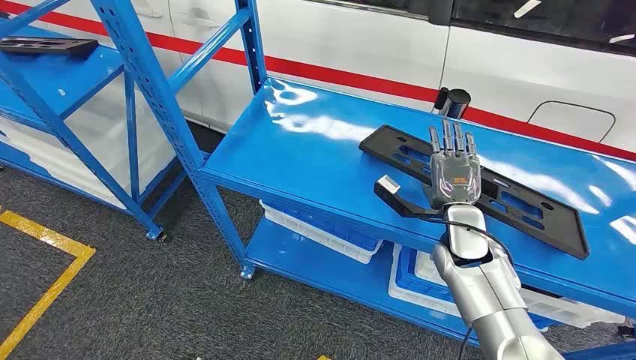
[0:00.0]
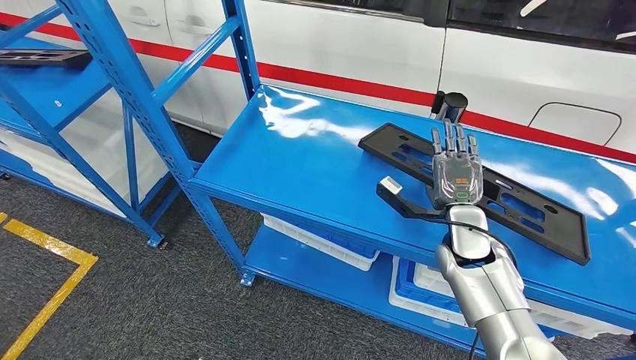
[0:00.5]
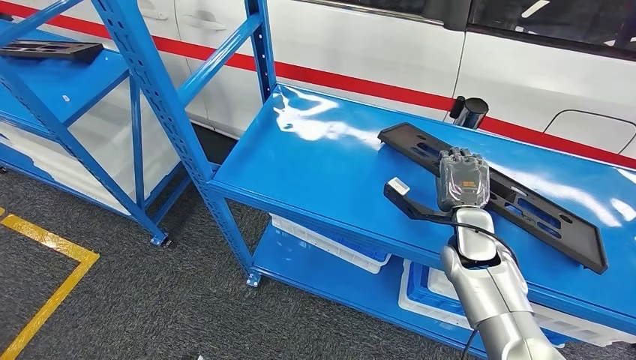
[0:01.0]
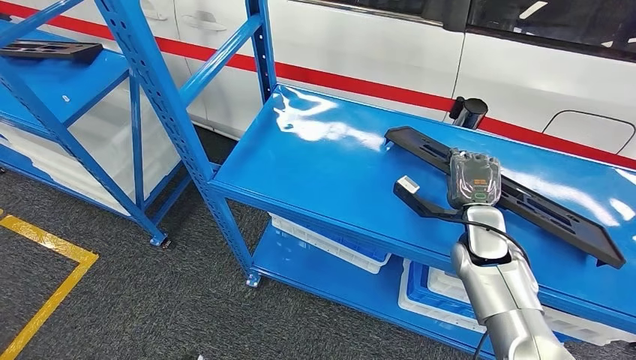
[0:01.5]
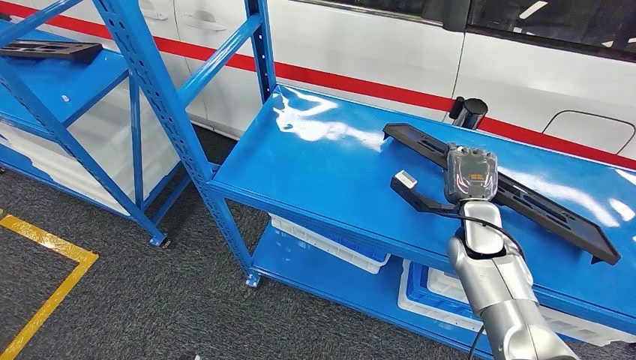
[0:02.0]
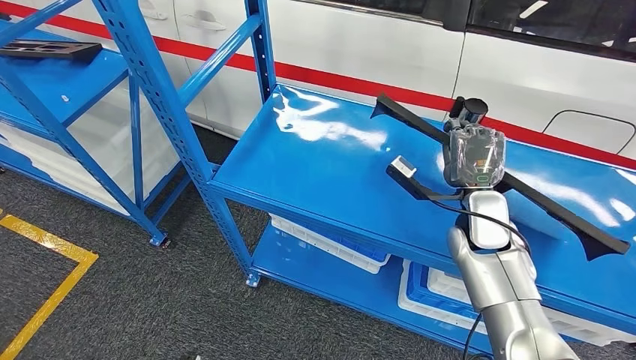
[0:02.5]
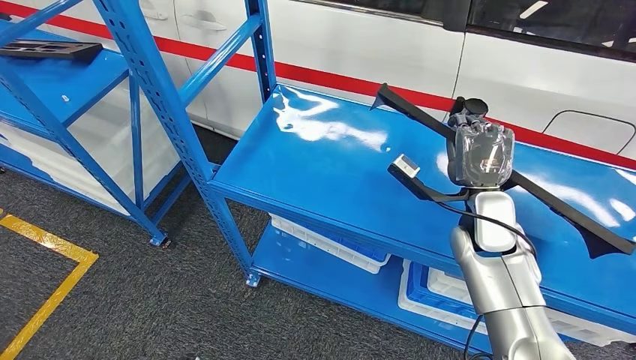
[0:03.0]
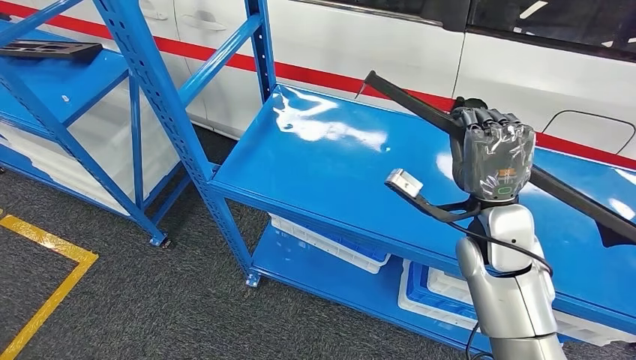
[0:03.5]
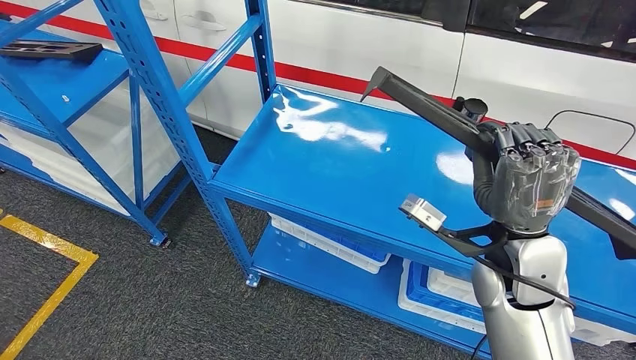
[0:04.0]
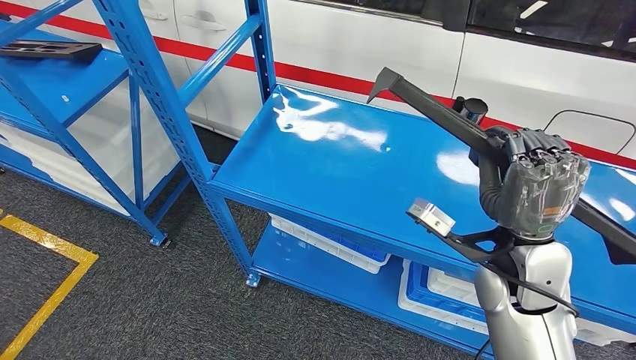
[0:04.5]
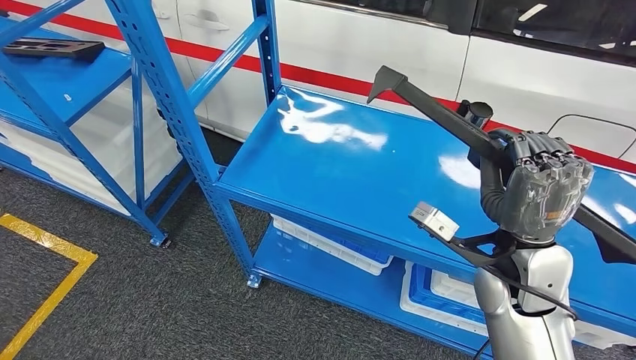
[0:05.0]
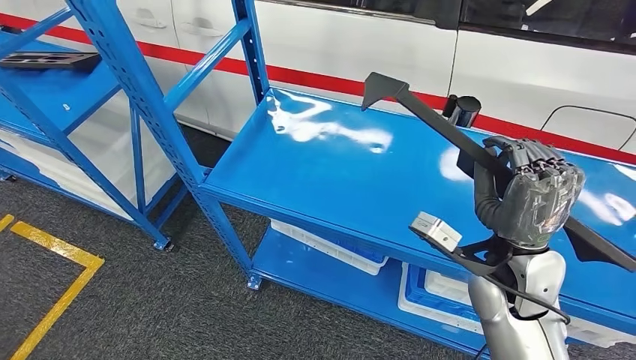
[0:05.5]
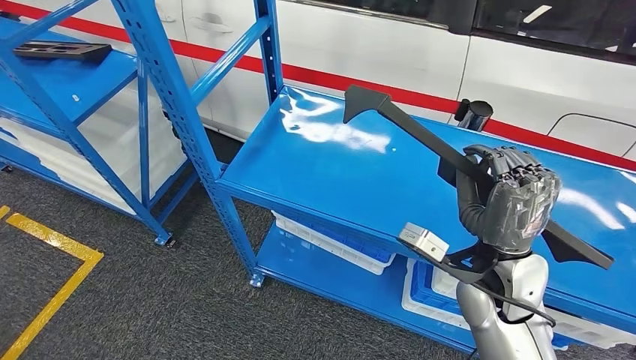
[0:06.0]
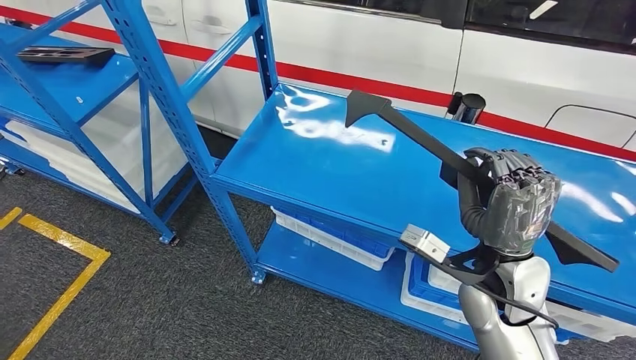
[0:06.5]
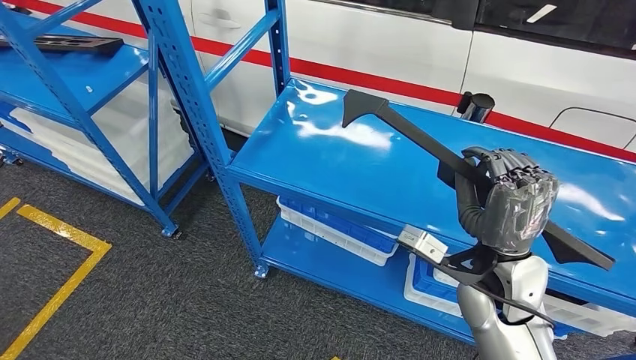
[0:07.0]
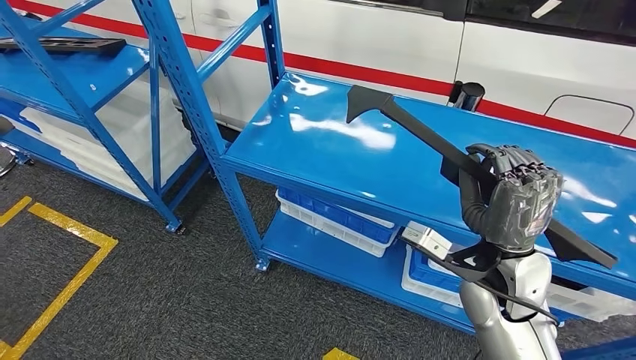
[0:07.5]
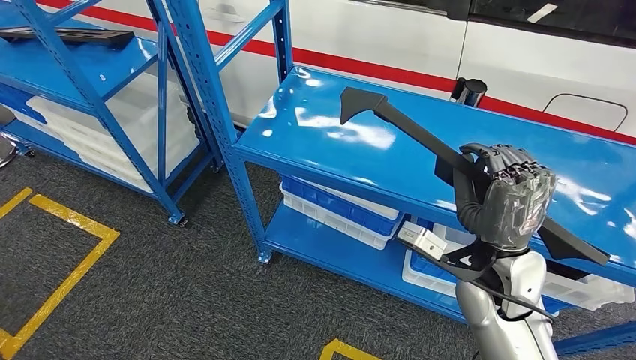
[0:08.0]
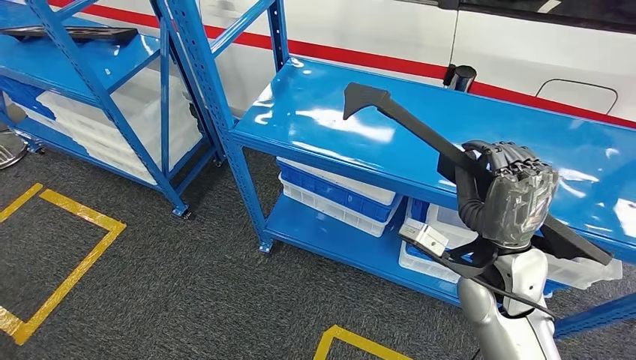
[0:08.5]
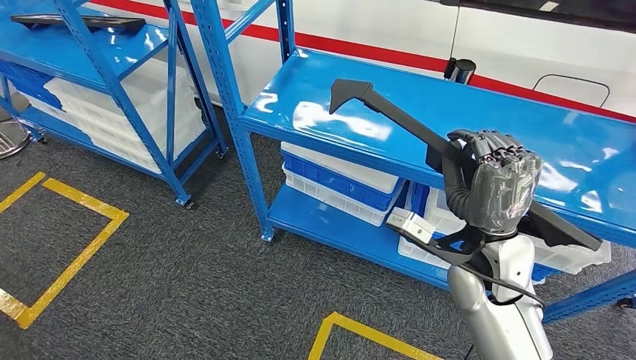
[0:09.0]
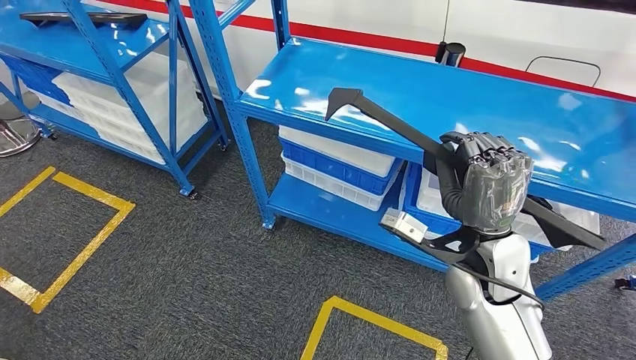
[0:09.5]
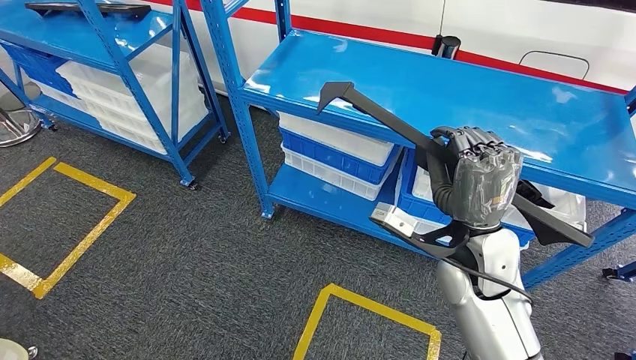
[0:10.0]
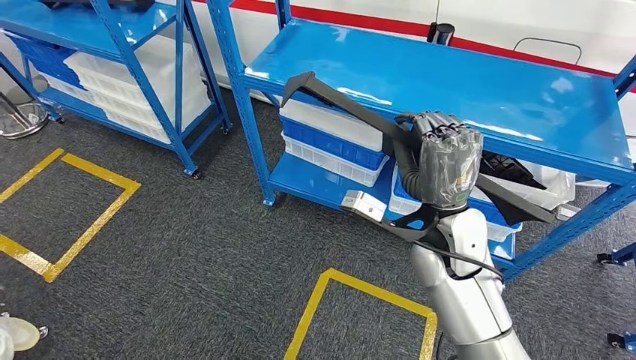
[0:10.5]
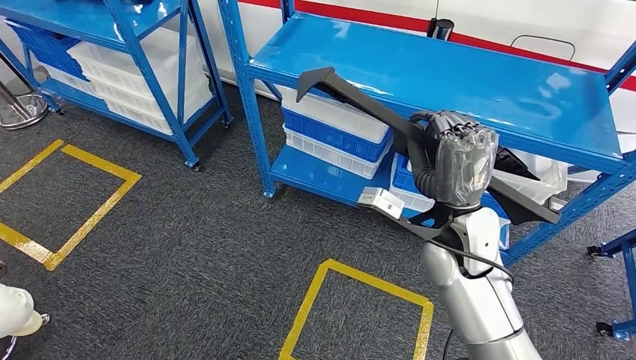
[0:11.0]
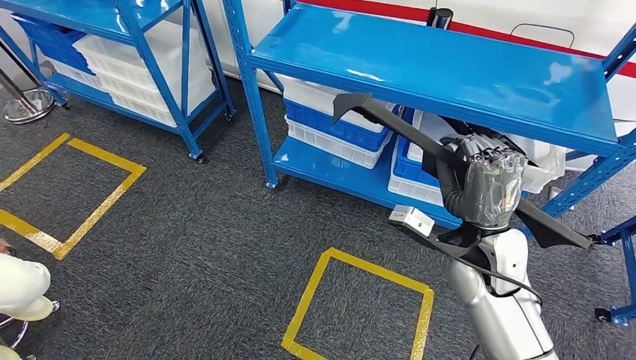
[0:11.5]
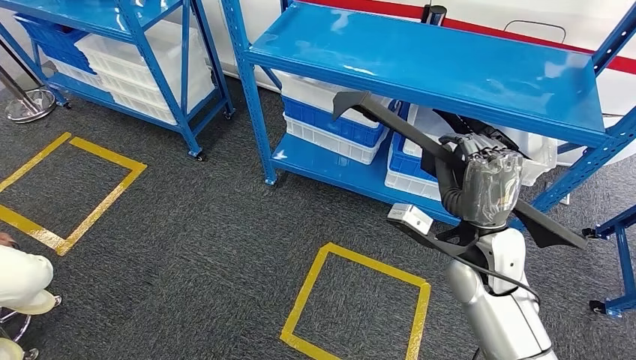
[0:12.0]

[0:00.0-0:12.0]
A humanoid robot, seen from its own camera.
Step, 0:00.0 to 0:03.5: Pick up the large material from the shelf.
0:02.0 to 0:04.0: The right hand travels upward and backward by approximately 15 cm.

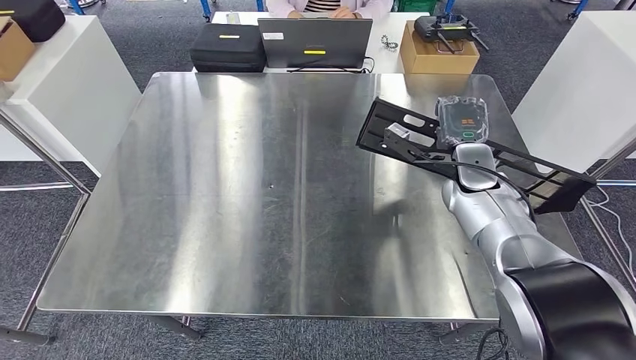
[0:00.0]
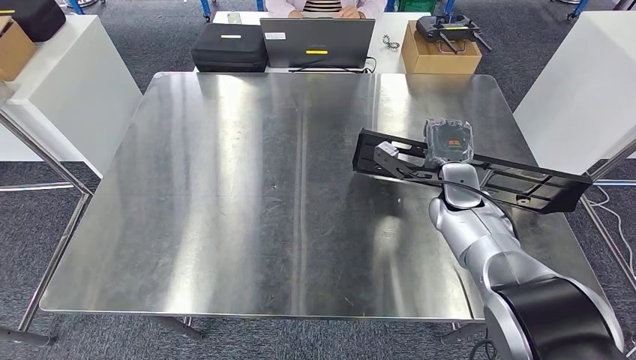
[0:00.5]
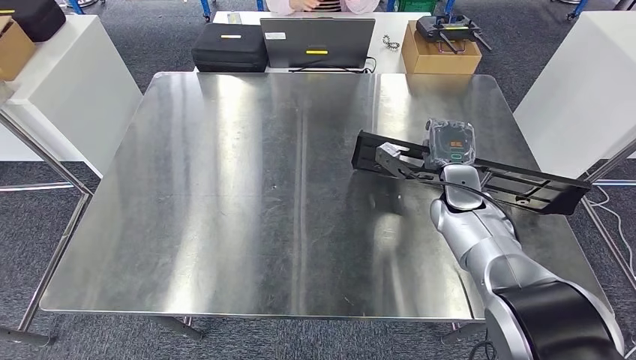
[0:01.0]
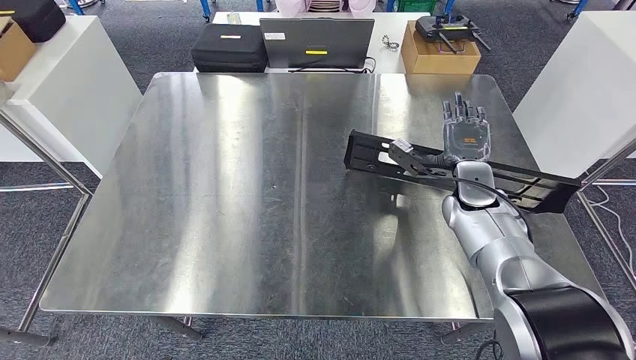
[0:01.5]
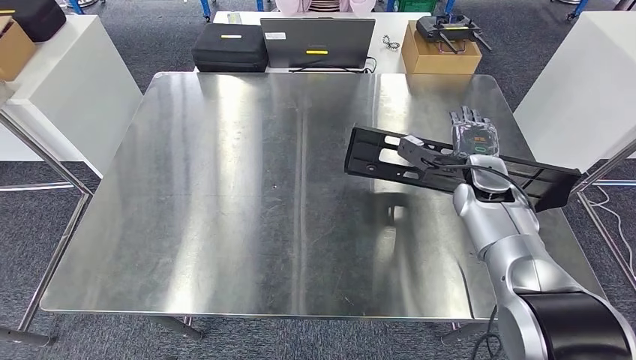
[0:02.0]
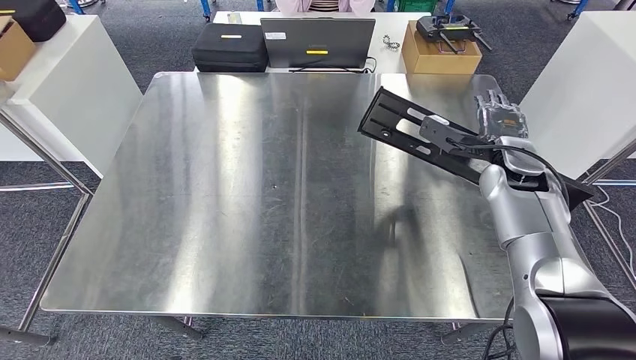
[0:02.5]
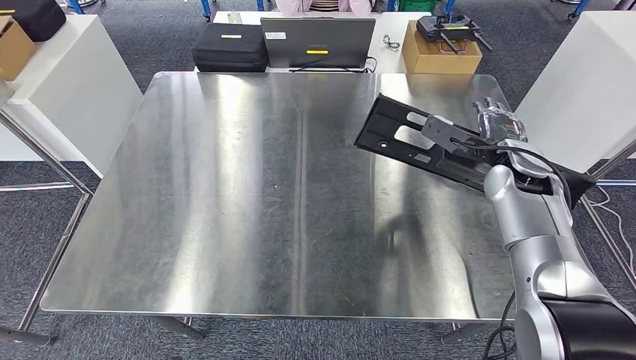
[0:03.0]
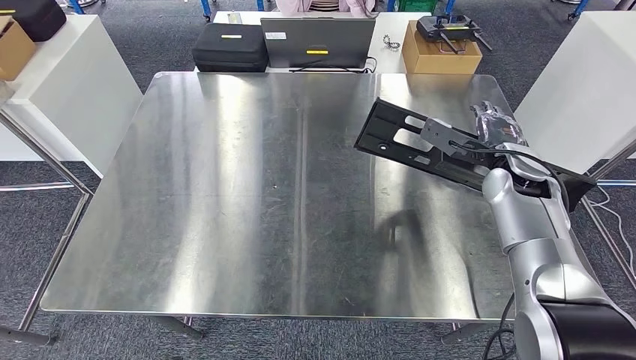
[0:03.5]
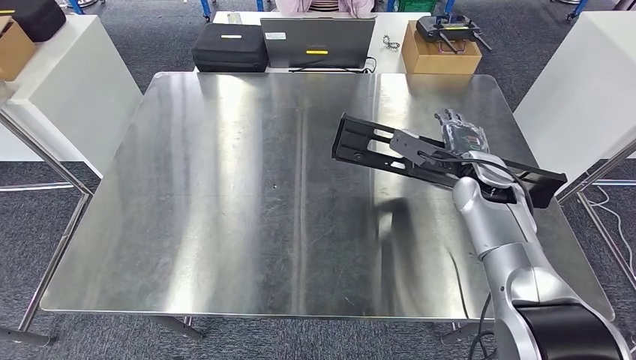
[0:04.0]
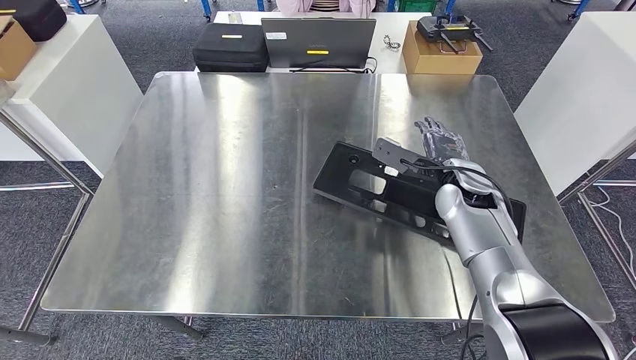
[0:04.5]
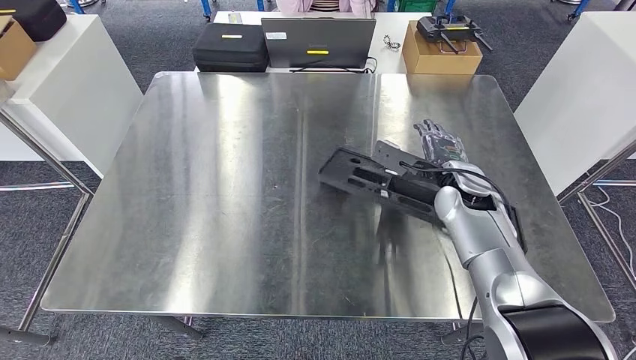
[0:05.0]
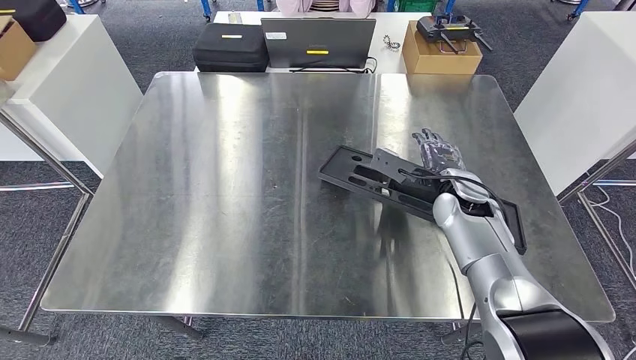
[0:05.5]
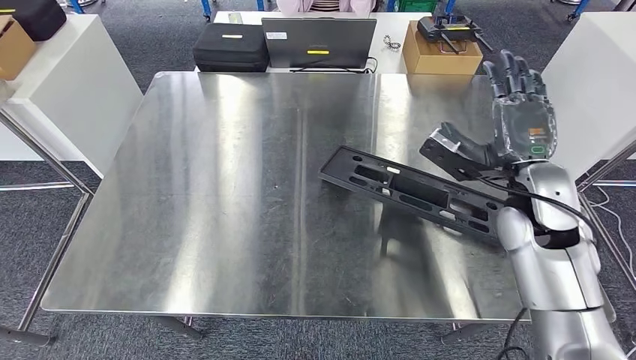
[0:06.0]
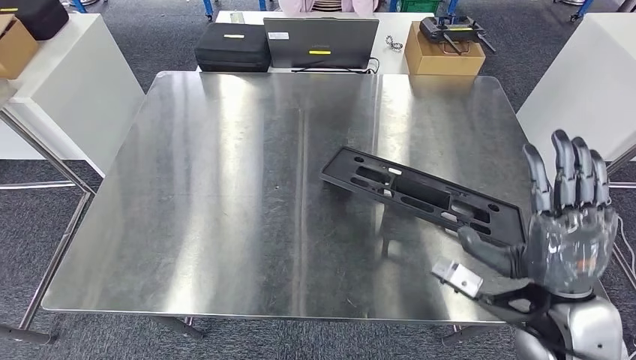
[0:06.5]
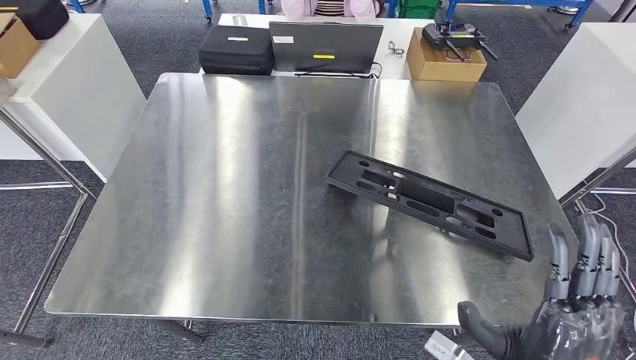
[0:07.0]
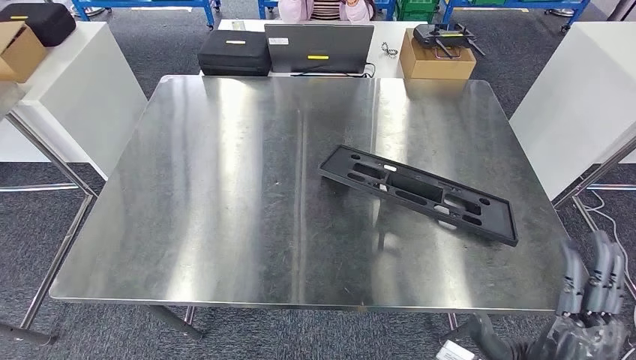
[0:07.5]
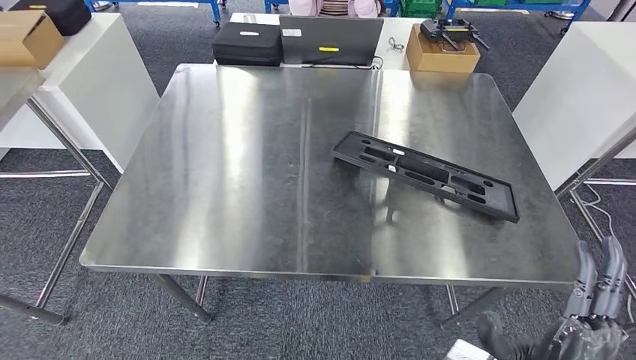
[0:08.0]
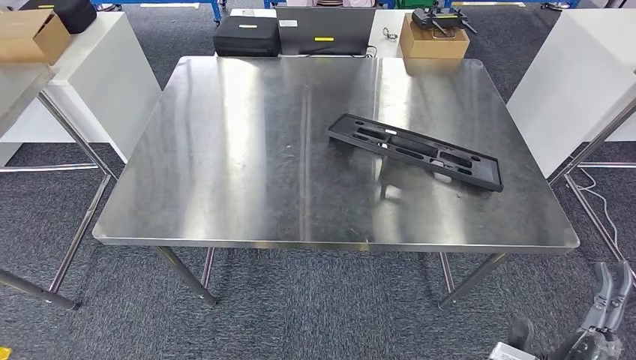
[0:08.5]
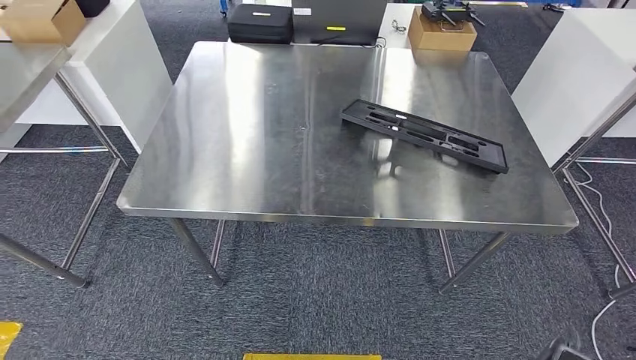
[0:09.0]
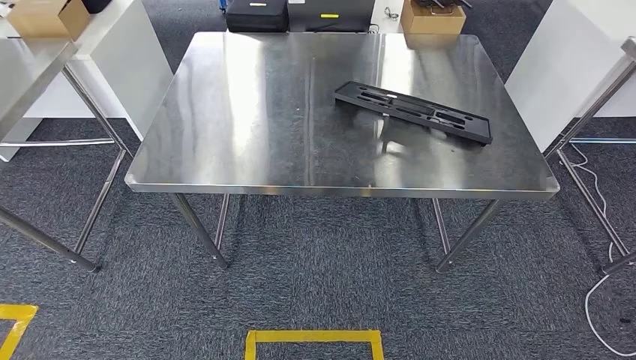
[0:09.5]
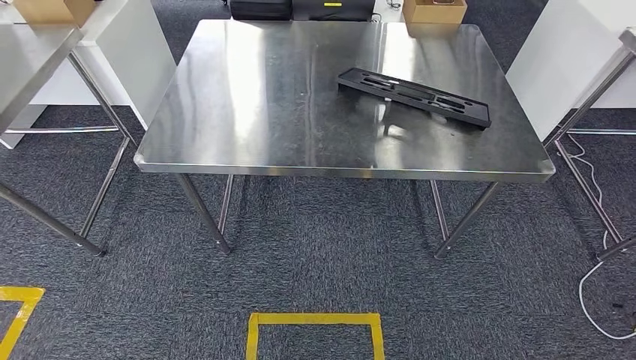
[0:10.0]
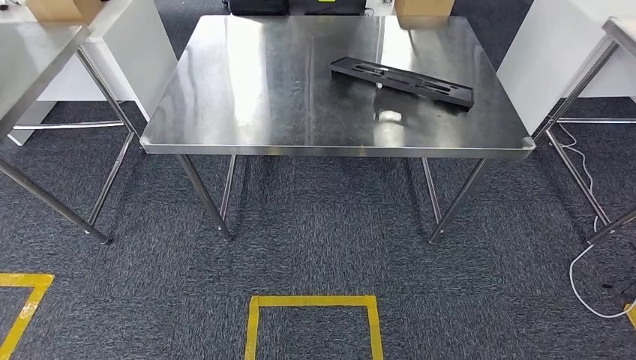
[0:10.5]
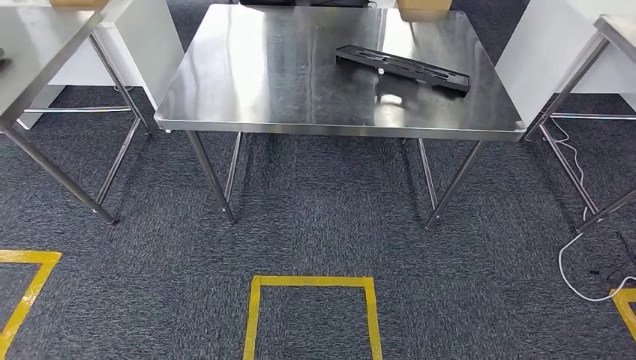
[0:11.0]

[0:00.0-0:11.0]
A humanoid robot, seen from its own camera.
Step, 0:00.0 to 0:07.0: Insert the large material into the corresponding hole on the workbench.
0:00.0 to 0:02.0: The hands make only small movements.
0:02.0 to 0:03.5: The right hand shifts by some 5 cm.
0:03.5 to 0:05.5: The right hand moves to the left and downward, approximately 10 cm.
